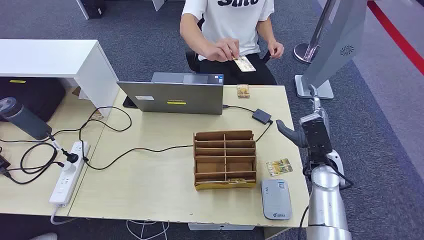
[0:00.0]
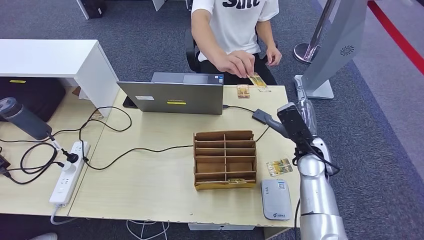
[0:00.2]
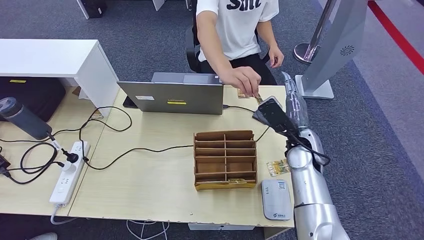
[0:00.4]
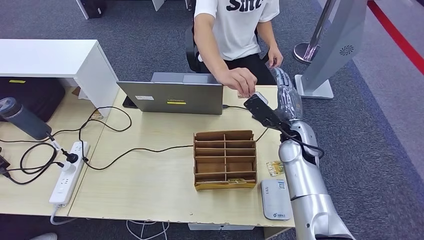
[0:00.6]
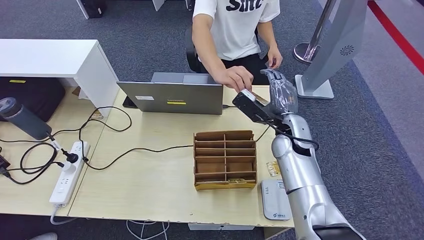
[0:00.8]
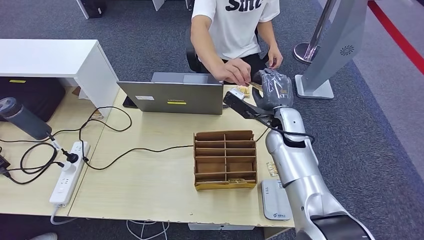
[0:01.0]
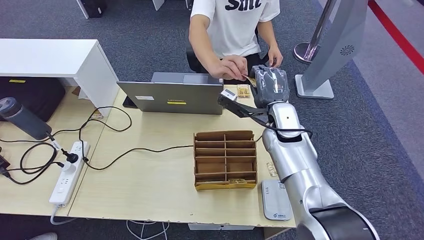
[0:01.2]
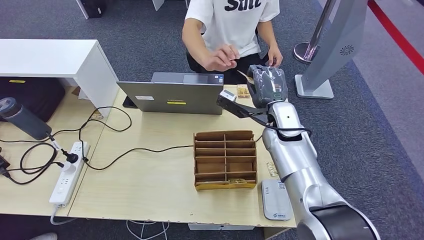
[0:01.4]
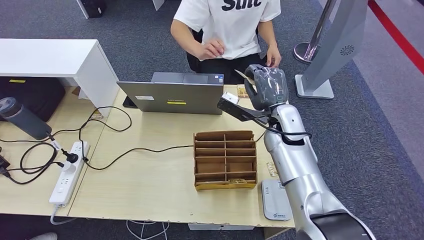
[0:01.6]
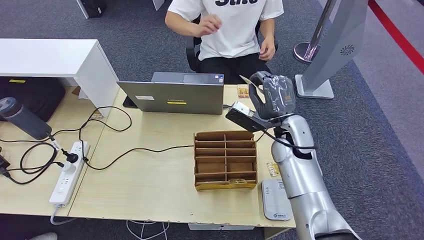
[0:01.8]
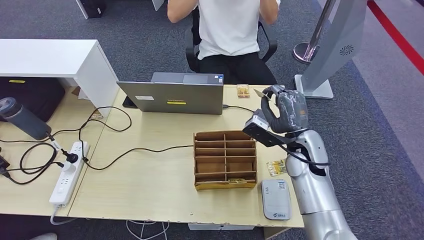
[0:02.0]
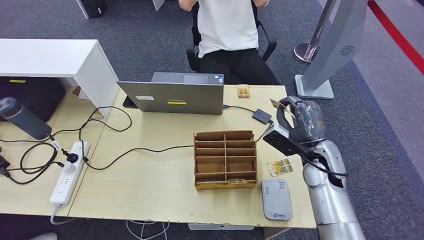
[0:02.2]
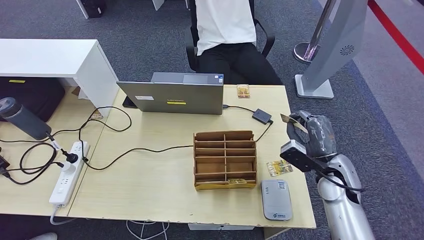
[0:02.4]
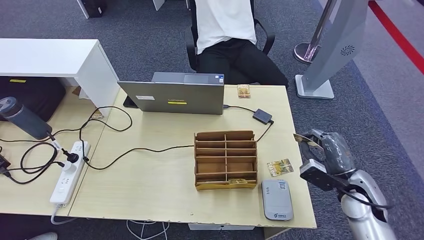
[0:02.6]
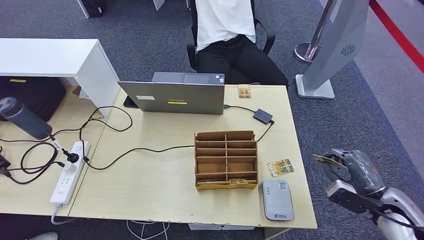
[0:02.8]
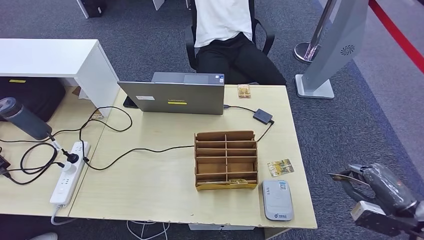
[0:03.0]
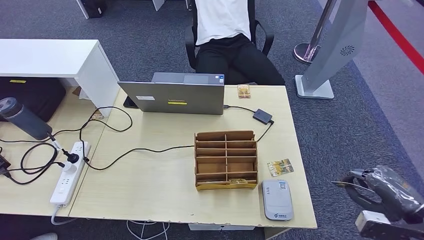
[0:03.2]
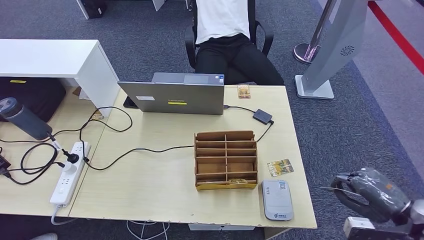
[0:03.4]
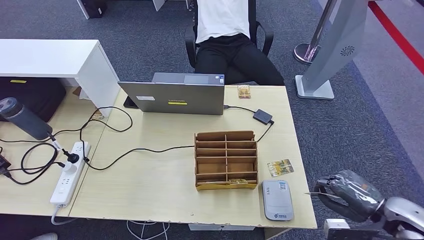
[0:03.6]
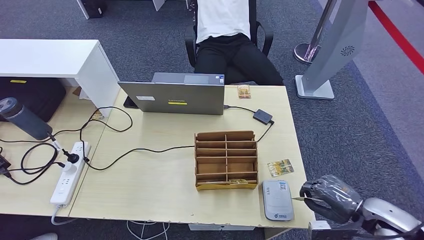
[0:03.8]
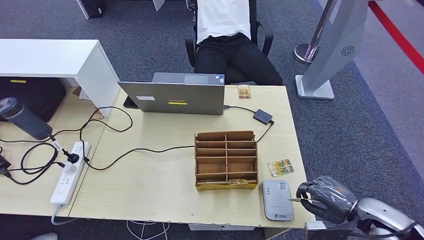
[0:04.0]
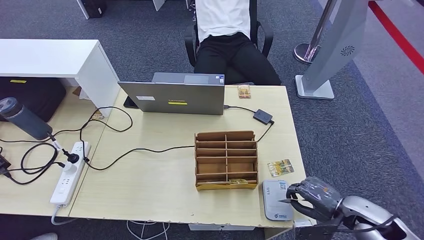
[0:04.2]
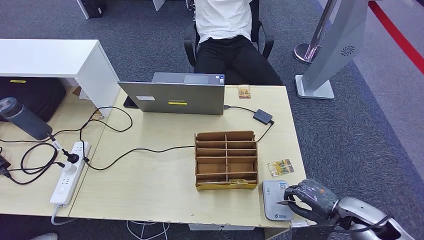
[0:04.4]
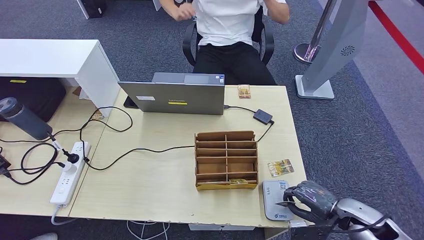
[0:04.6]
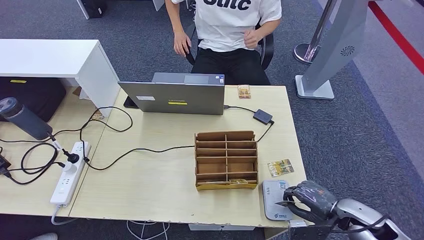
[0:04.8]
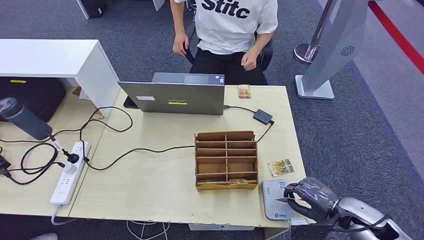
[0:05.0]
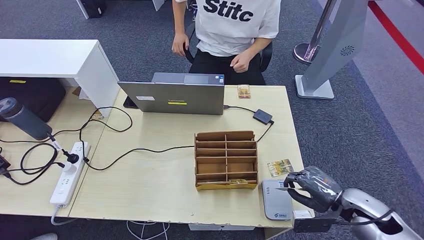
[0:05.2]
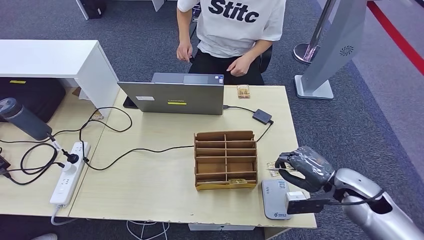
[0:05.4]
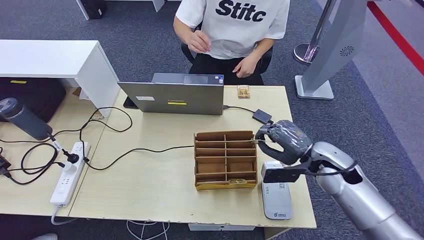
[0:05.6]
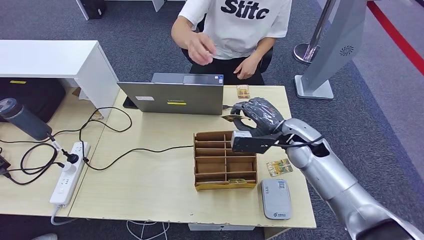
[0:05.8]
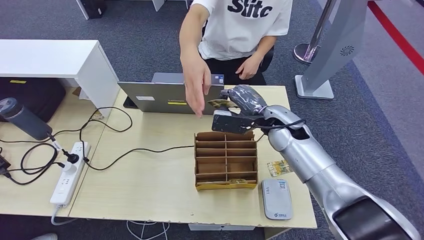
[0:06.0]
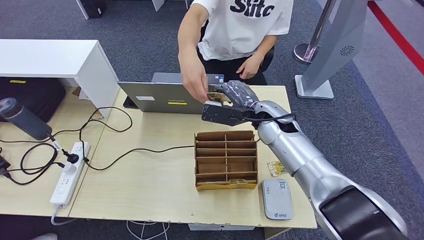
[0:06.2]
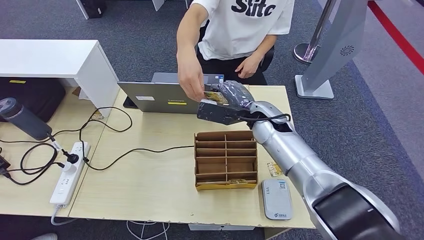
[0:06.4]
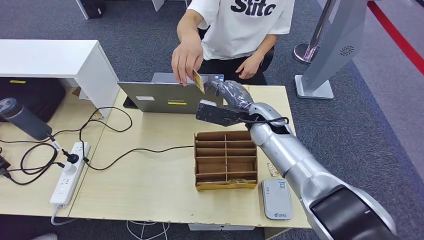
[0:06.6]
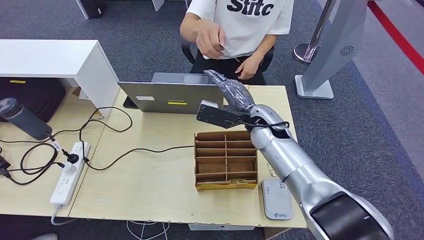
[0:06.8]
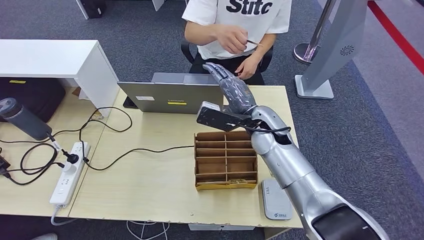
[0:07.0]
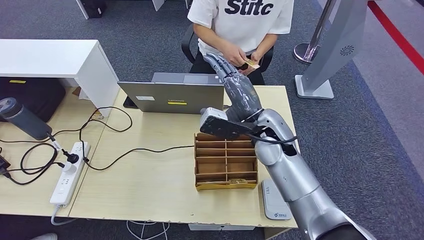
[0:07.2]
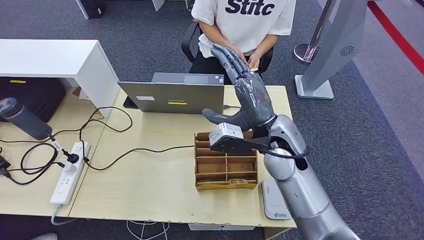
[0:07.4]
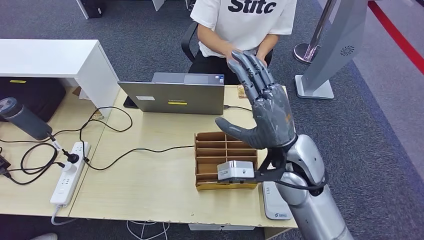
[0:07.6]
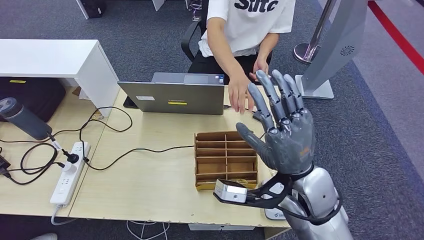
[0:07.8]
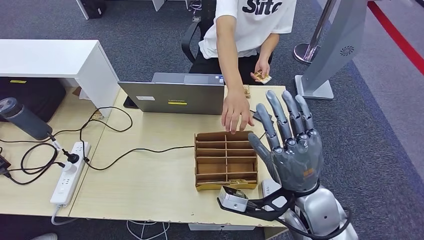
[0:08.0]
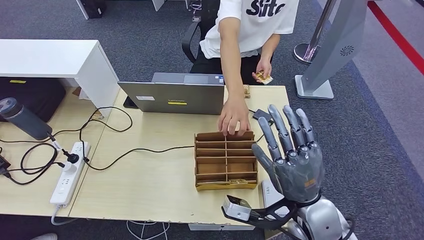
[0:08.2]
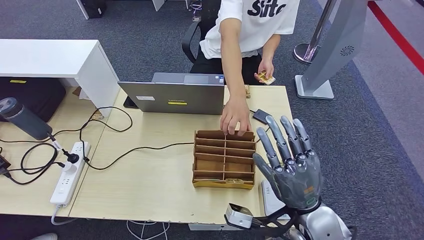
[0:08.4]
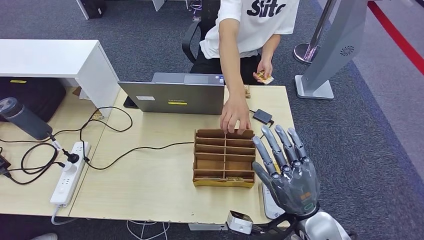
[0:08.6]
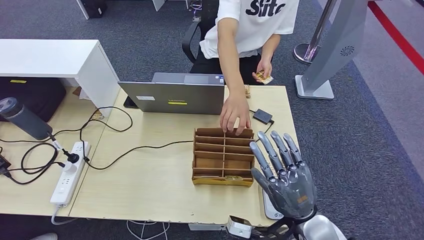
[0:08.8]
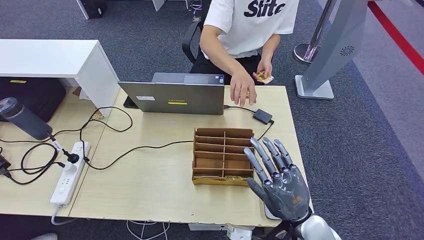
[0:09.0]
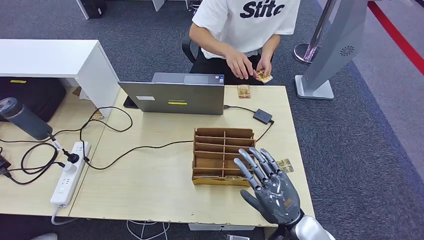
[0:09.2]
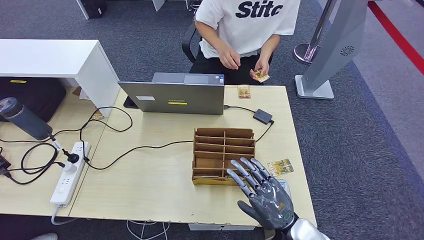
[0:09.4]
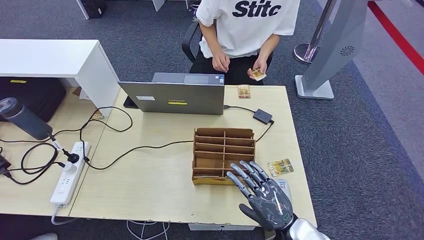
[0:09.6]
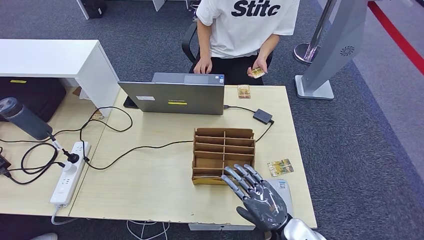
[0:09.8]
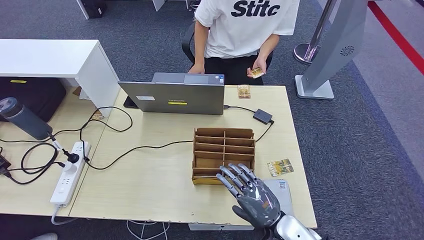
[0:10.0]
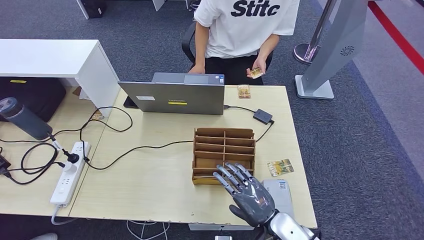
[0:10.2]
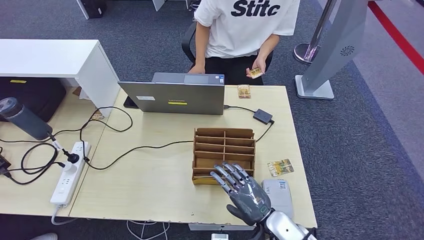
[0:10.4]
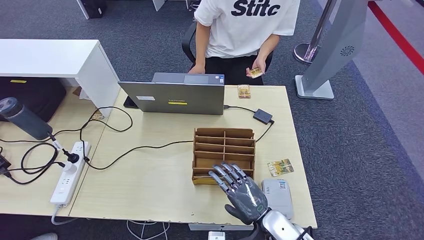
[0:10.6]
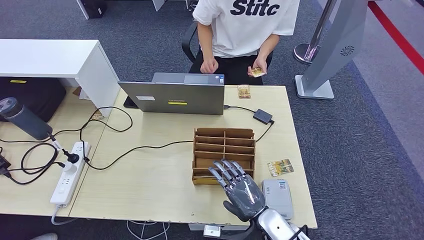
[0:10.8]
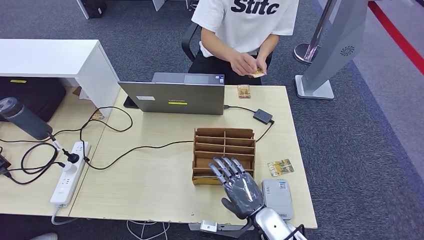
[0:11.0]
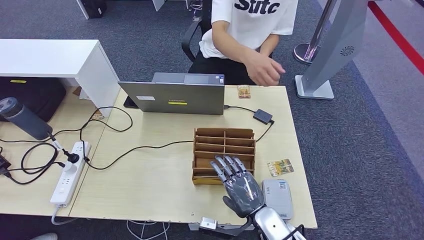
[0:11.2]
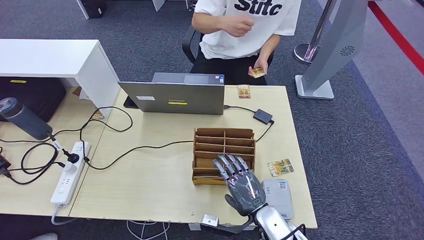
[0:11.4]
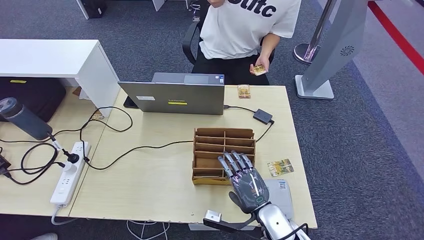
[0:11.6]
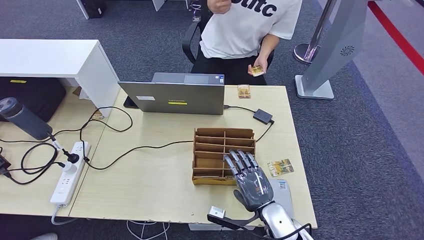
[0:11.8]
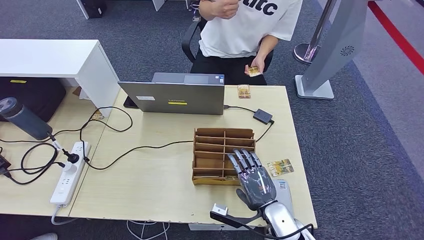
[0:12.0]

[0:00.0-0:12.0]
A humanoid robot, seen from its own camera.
Step, 0:00.0 to 0:03.2: Take the ID card from the person's hand.
Step, 0:03.4 to 0:05.2: Place the ID card on the card reader.
Step, 0:05.4 to 0:09.0: Hand the ID card to the person.
0:01.6 to 0:03.0: The right hand travels to the right and backward by roughly 40 cm.
0:03.0 to 0:04.4: The right hand heads to the left and downward, covering about 10 cm.
0:04.4 to 0:06.0: The right hand goes approximately 30 cm to the left, forward and upward.
0:06.0 to 0:07.6: The right hand is displaced backward by approximately 10 cm.
0:07.6 to 0:09.0: The right hand shifts about 15 cm downward and backward.
0:09.0 to 0:10.4: The right hand moves downward, some 5 cm.
0:10.4 to 0:12.0: There are only small adjustments of the hands.

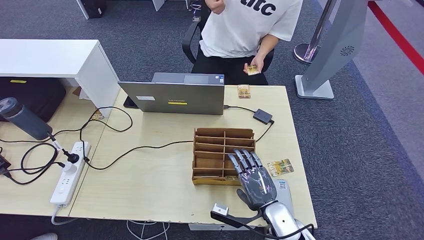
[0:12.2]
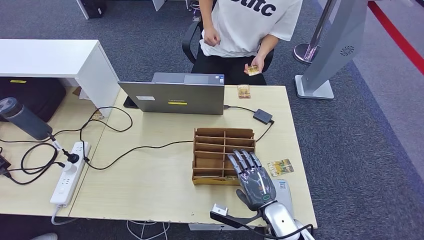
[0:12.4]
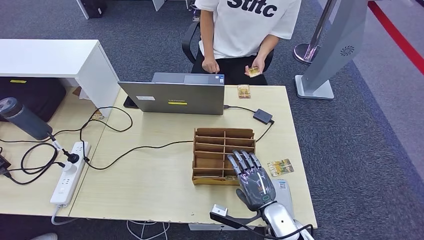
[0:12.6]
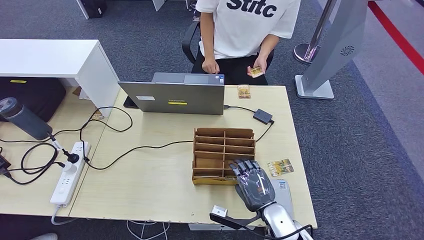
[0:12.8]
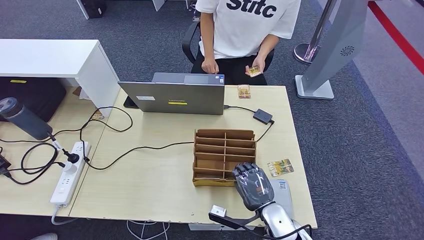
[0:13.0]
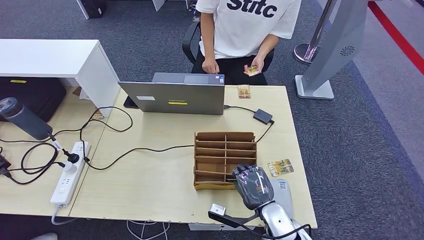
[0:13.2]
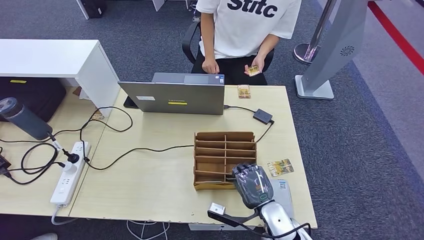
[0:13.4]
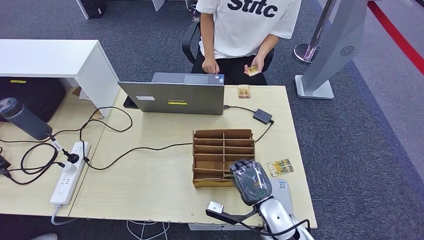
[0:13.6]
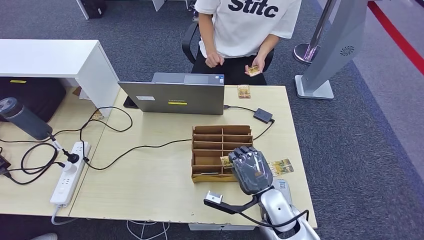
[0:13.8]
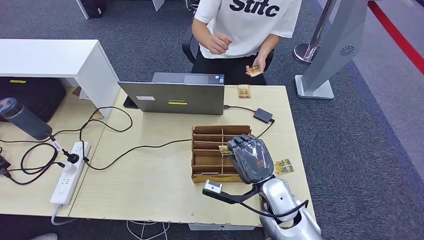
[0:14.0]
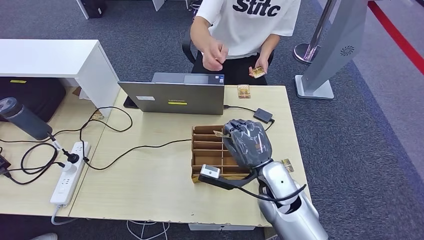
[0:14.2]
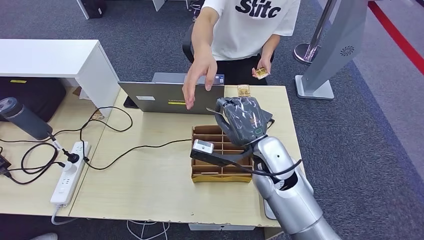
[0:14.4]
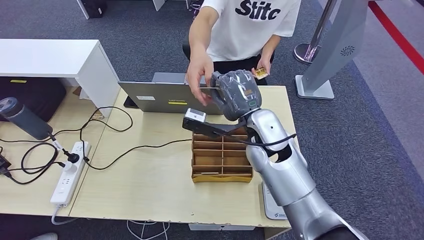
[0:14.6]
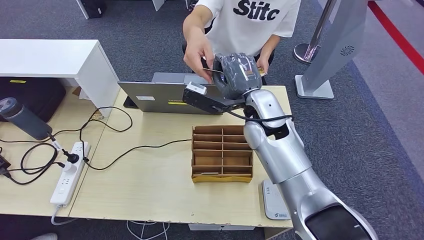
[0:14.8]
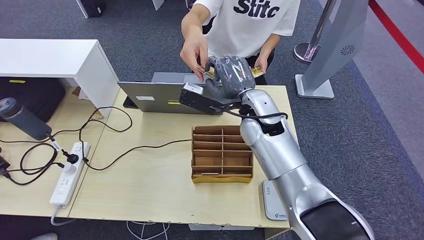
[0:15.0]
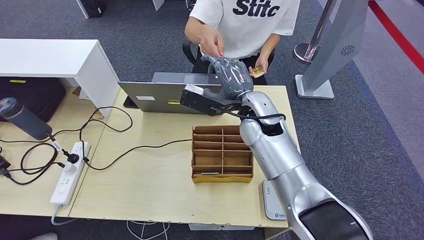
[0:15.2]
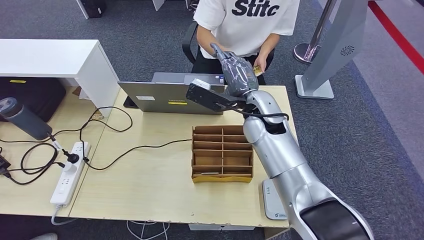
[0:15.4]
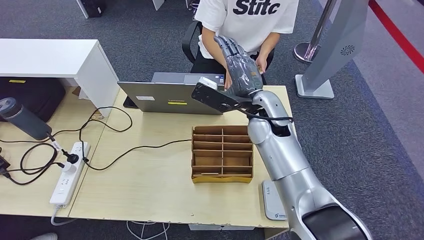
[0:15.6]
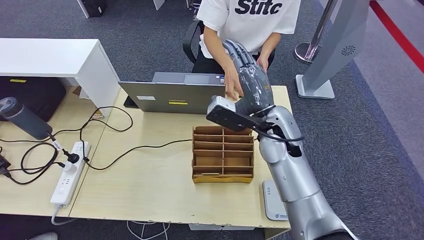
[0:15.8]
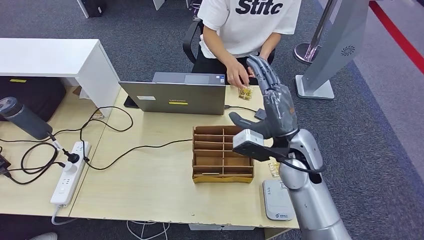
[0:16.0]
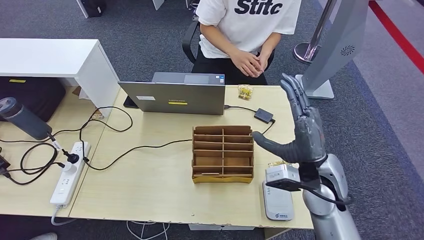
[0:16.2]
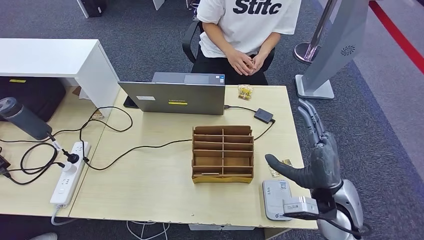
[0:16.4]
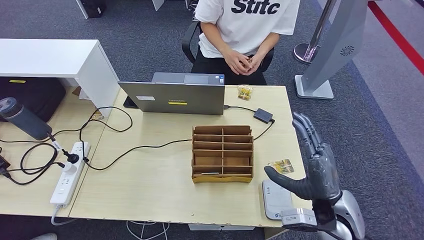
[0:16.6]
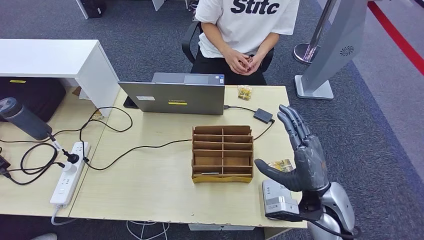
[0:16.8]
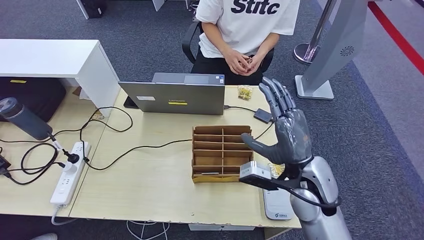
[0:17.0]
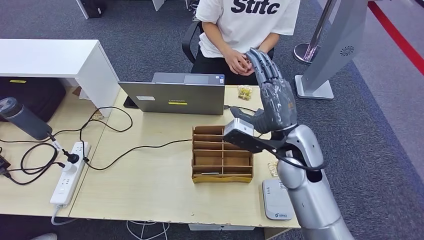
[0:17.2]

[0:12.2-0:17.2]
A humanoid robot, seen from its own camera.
0:12.2 to 0:13.8: The hands stay close to where they were, moving slightly.
0:13.8 to 0:15.6: The right hand moves upward and forward, about 25 cm.
0:15.6 to 0:17.2: The right hand travels backward and to the right by about 10 cm.
